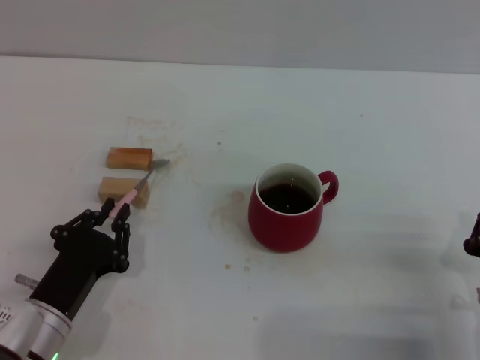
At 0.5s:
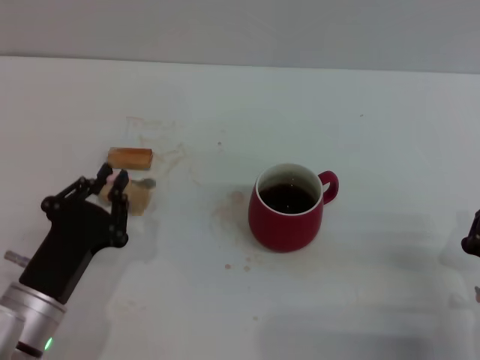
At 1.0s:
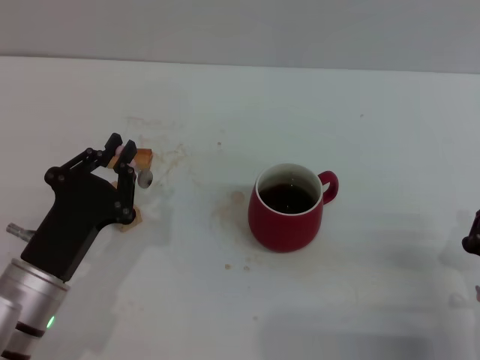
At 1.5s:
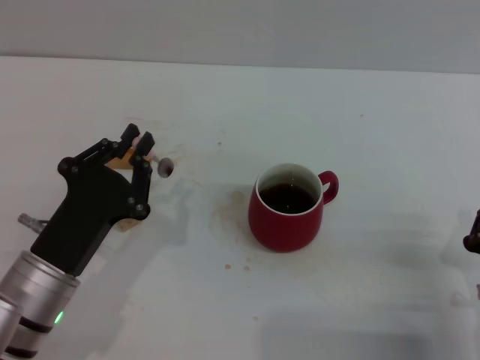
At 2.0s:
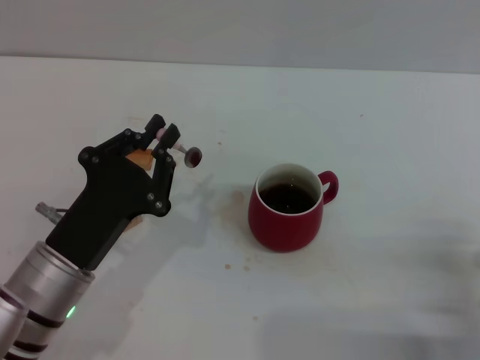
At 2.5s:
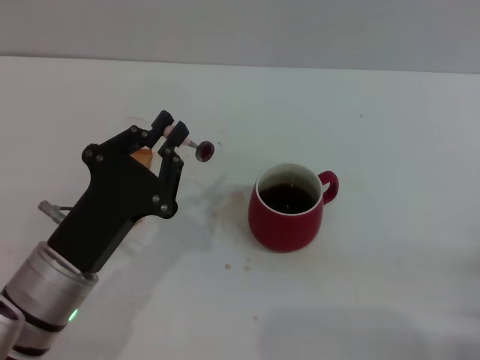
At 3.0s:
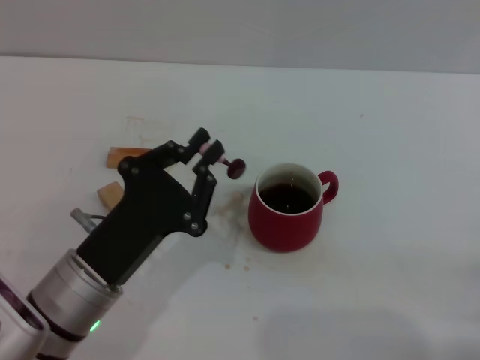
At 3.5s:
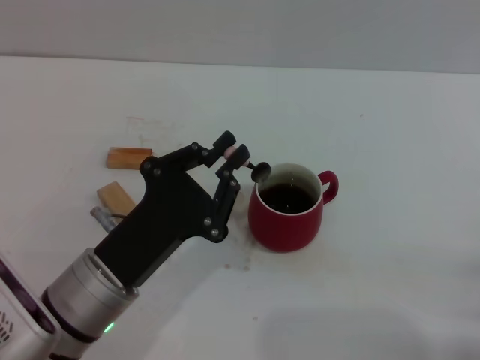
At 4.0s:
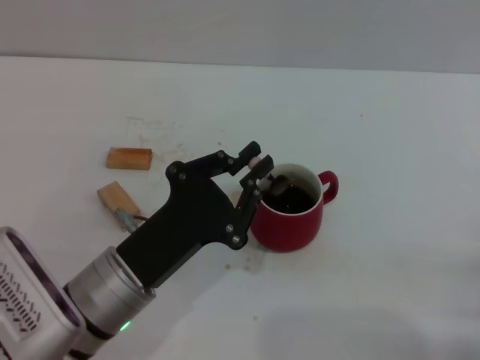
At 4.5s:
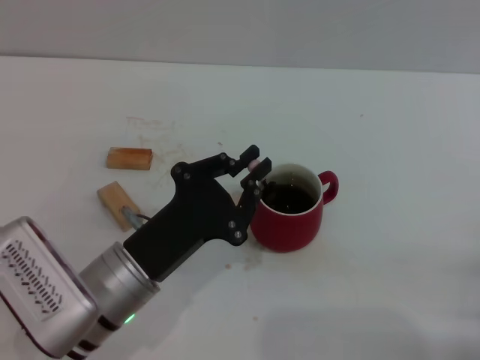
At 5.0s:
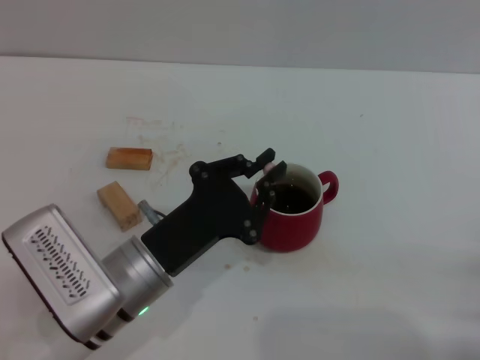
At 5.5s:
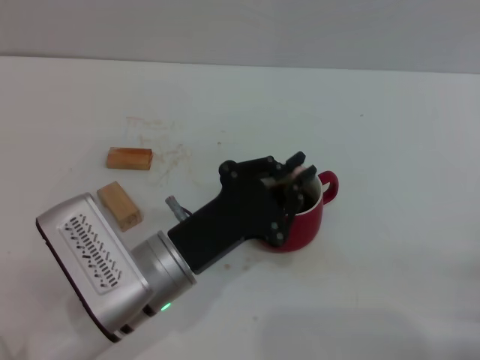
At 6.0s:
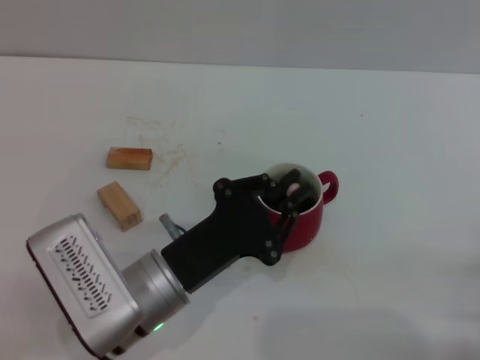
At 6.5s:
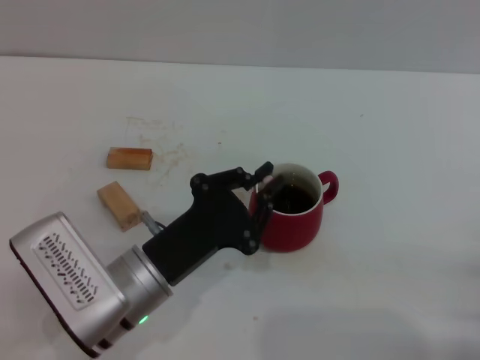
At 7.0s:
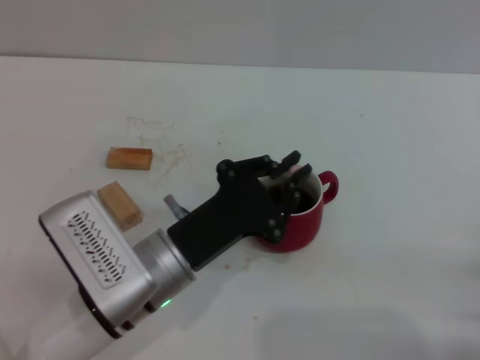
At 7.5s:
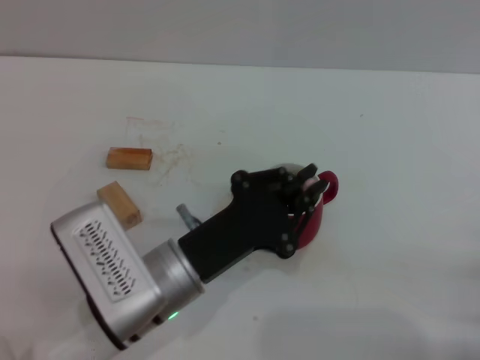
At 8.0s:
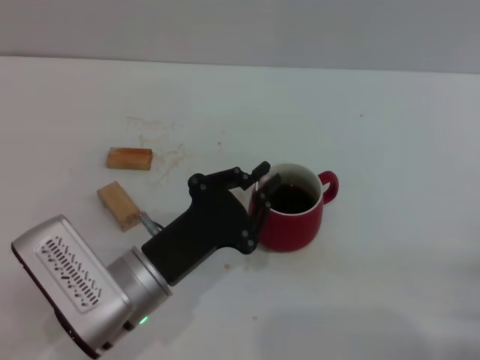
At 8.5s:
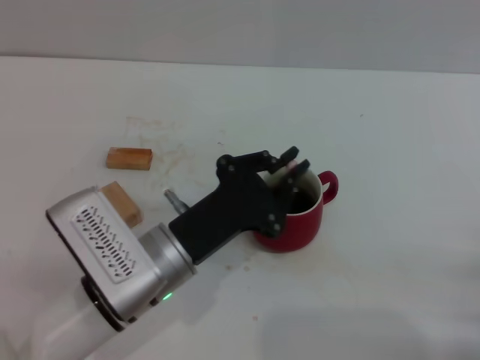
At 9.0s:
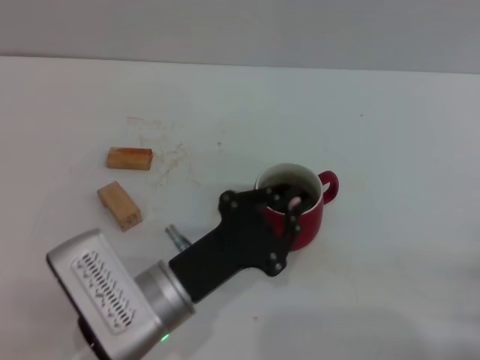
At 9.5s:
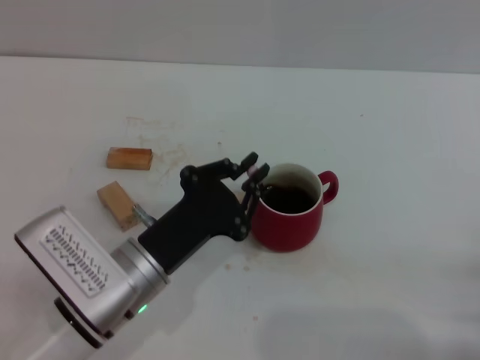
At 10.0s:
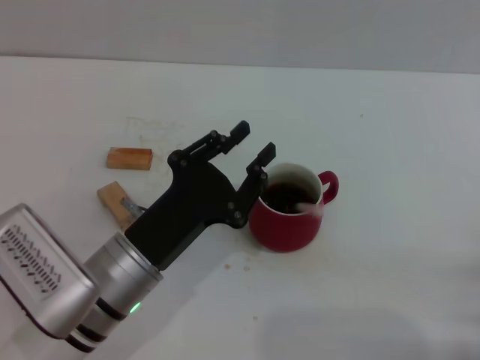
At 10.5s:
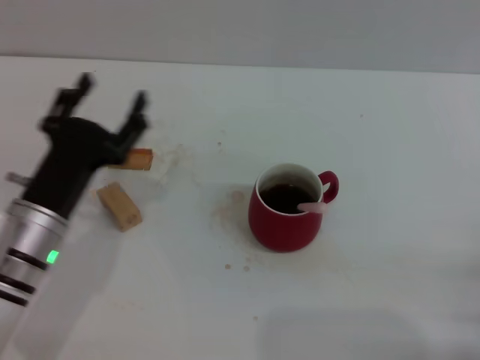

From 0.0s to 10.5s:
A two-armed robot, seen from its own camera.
Task of the whole recording: Move the red cup to the center, lift the pink spoon, stir it three times in the cup, and put the spoon into the cup.
Step, from 0.0s to 9.5s: Stir the coffee with left gripper.
From 0.0s to 2.0s: The left gripper shifts some 5 cm upward.
From 4.0s to 8.5s: The grippers stay close to where they were, moving slightly.
From 8.5s to 10.5s: The left gripper goes roughly 10 cm to the left, and opens its fingers.
